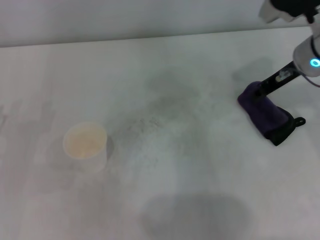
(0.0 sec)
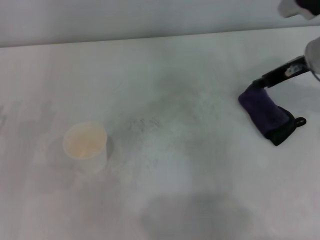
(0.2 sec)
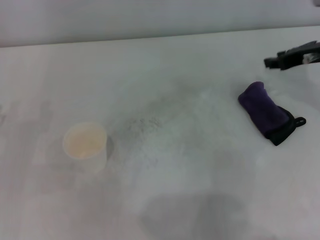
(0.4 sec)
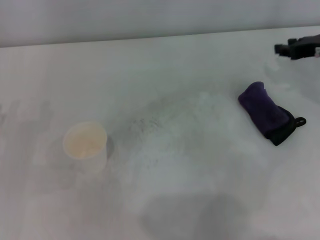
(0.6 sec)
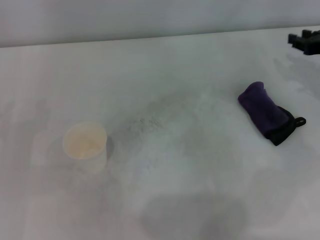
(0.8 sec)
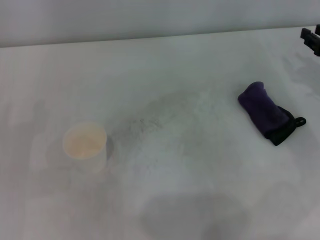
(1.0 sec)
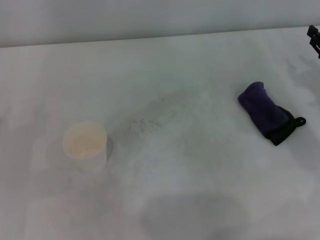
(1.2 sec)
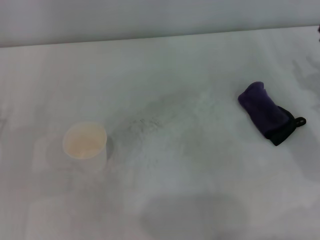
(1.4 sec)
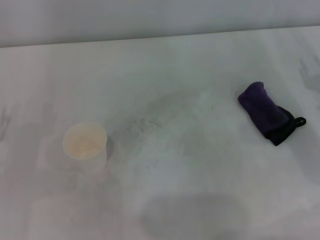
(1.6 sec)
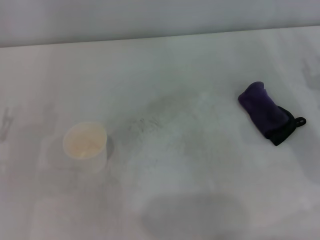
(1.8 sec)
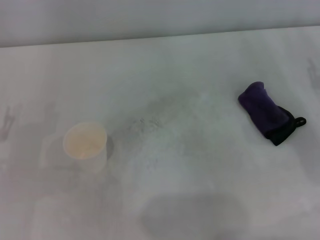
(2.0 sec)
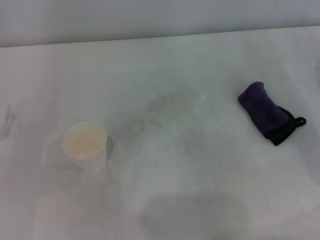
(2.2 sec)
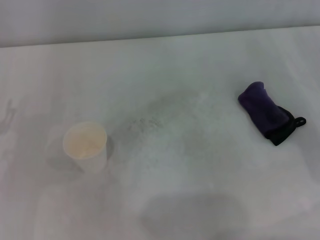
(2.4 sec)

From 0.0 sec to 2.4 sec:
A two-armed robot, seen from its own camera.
From 0.0 sec to 1.2 sec: The right gripper is displaced to the right, downward and backward by about 15 cm.

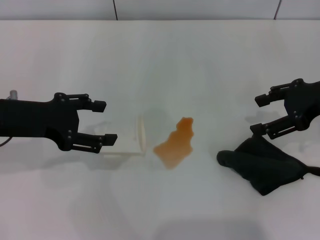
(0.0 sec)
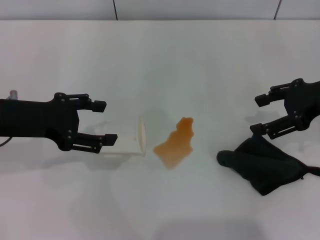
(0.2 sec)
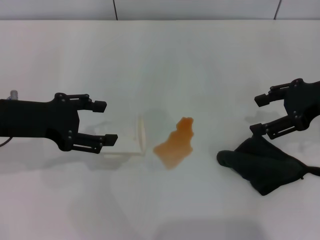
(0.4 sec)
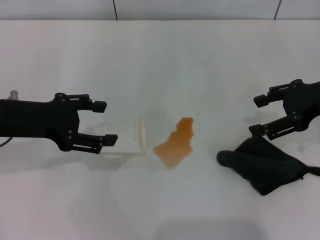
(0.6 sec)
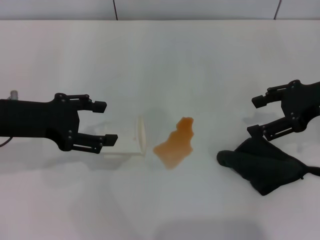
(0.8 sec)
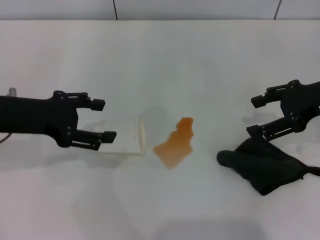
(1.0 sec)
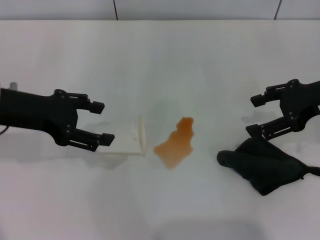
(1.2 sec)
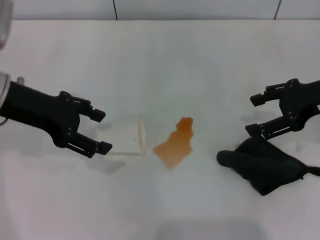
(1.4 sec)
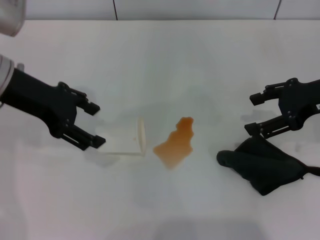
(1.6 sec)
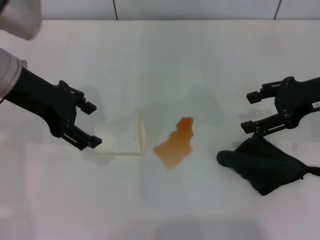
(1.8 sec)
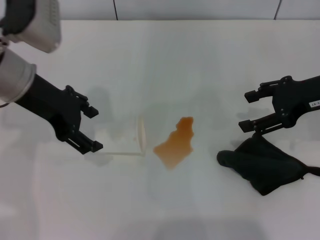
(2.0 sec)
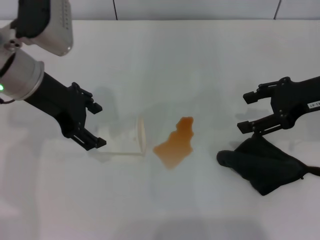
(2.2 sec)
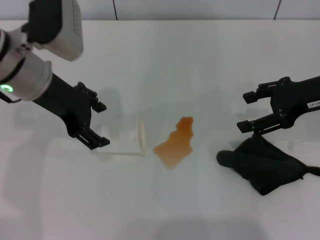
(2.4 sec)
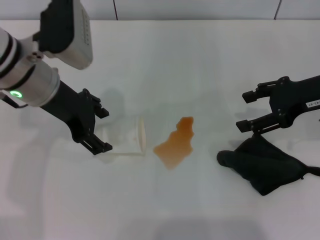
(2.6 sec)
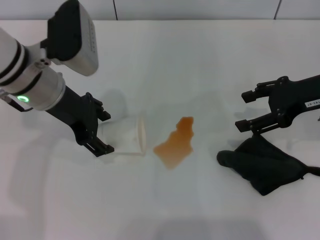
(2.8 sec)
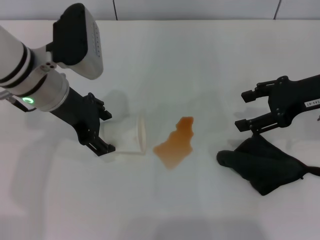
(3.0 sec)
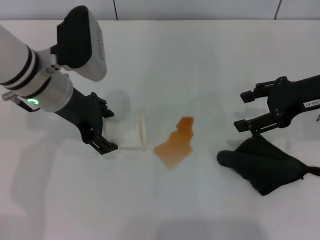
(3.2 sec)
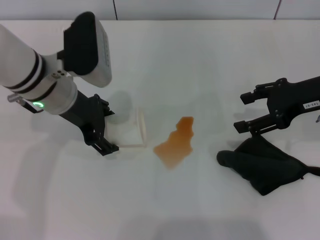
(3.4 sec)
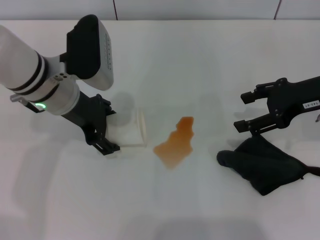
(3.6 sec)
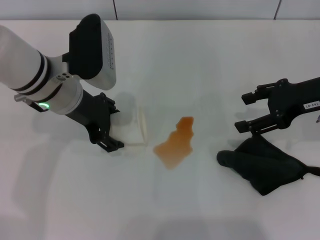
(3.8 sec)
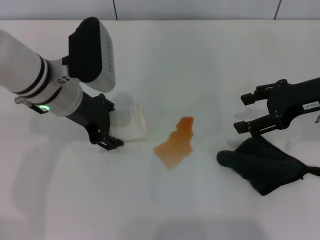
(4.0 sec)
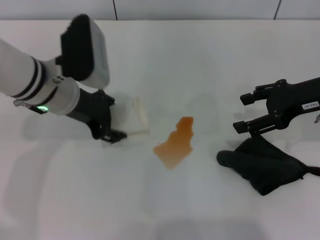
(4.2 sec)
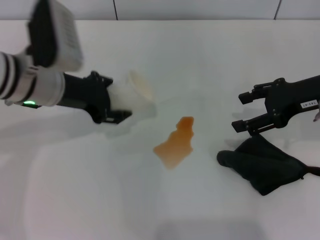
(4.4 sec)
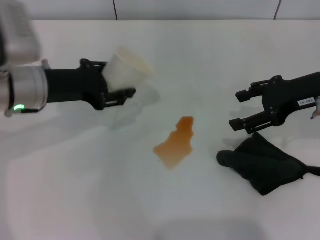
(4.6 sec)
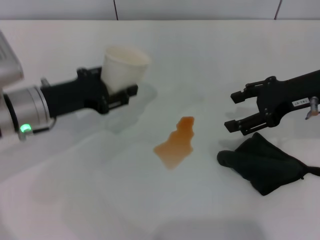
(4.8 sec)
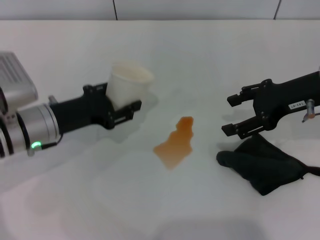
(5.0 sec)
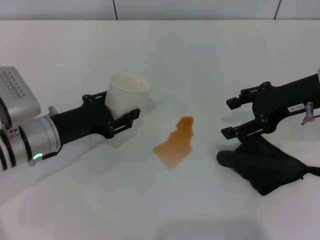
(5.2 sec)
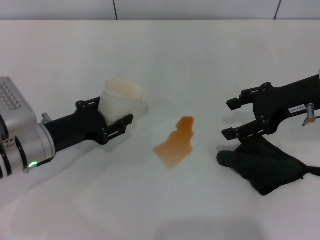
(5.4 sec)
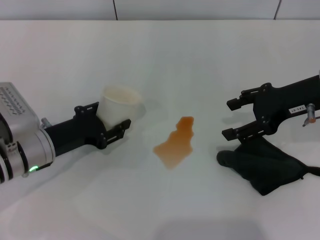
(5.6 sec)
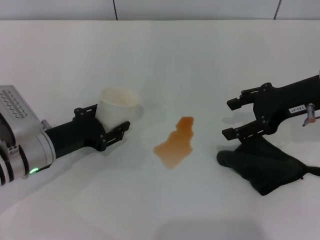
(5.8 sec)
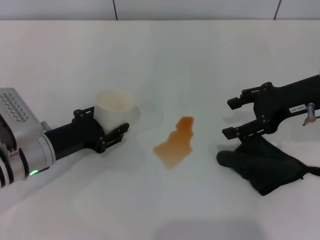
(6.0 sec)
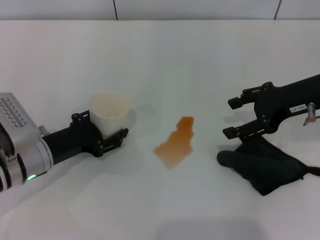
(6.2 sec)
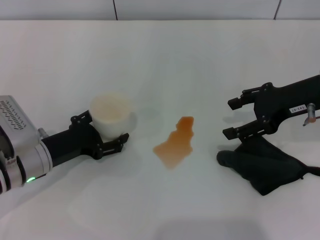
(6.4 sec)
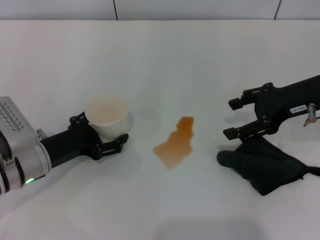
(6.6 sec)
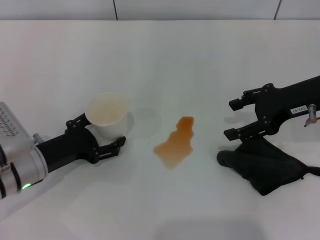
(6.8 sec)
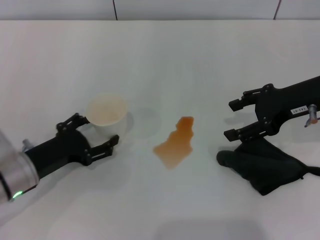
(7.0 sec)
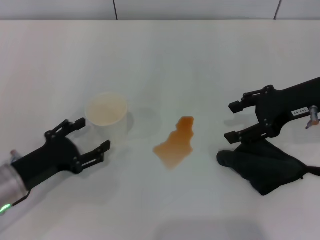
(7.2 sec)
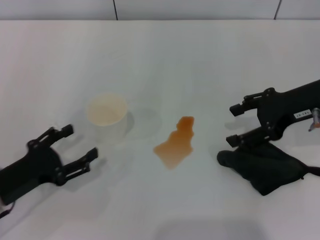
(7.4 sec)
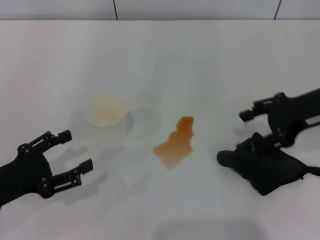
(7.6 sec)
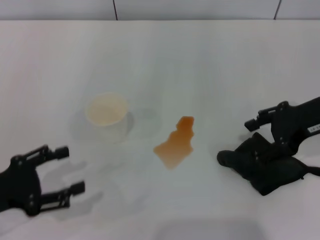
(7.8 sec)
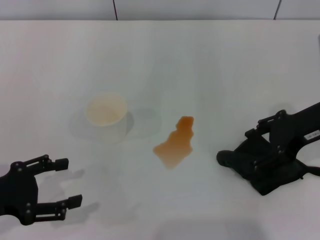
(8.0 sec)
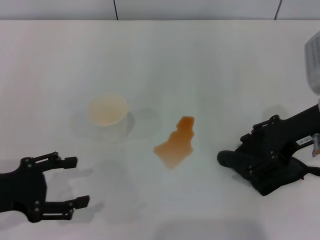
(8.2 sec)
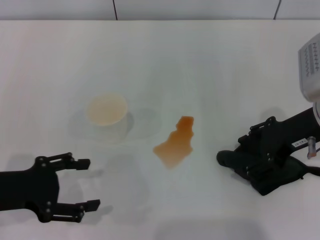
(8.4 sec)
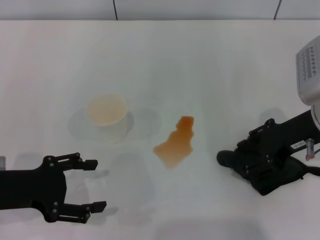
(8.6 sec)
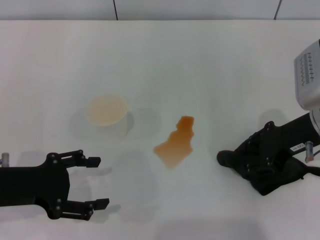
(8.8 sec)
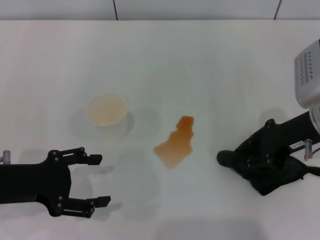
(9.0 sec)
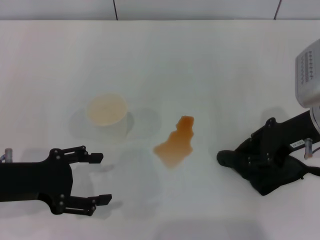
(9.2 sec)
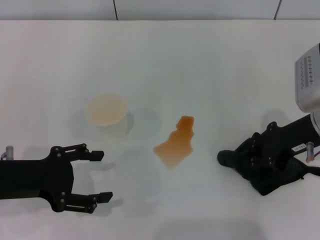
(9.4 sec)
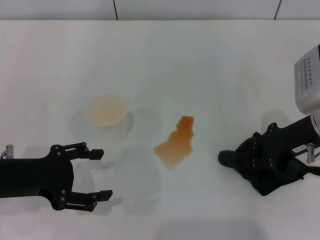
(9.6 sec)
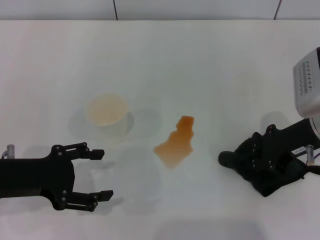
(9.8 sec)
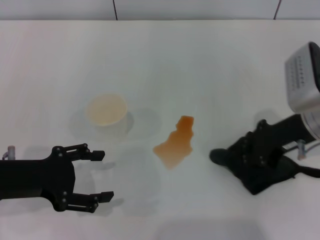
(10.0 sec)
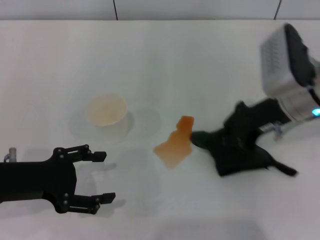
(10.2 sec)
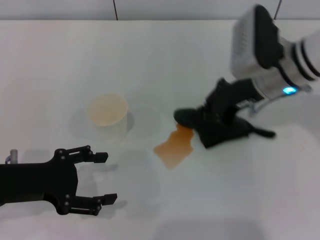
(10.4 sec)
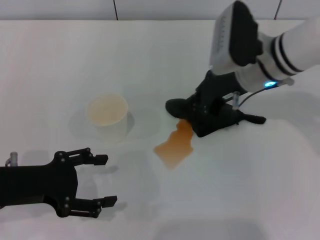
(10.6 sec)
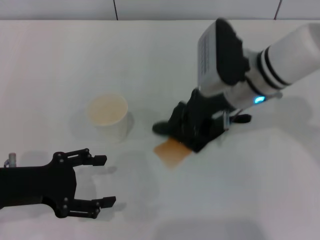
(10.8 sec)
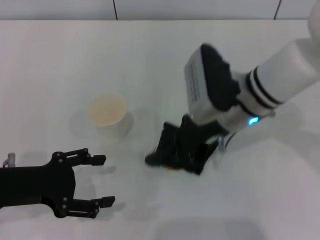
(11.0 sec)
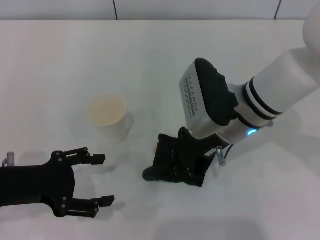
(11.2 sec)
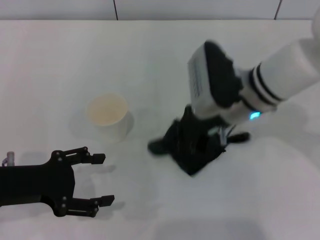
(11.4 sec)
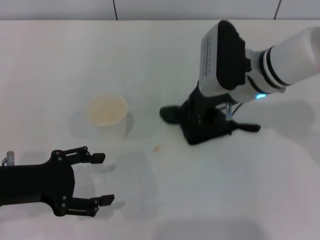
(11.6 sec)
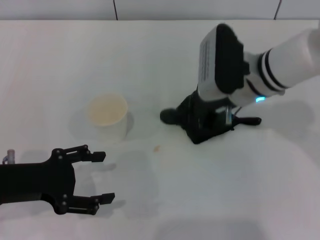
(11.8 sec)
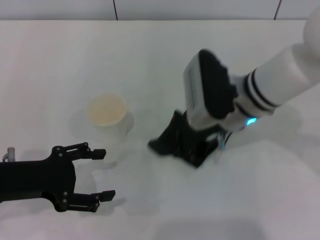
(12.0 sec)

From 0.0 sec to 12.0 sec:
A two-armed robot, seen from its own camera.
Step, from 0.0 sec to 3.6 sec: Grasp the paper cup with the left gripper.
Step, from 4.0 sec to 7.0 sec: Stand the paper cup upright with the left gripper.
Step, from 7.2 sec to 9.6 sec: Grasp the rag with the right gripper.
From 0.0 sec to 1.6 sec: The left gripper moves upward, about 5 cm.
From 1.6 sec to 3.0 sec: The left gripper travels to the right and downward by roughly 10 cm.
From 3.0 sec to 4.4 sec: The left gripper closes up.
From 4.4 sec to 6.0 sec: The left gripper heads downward and backward, covering about 15 cm.
From 6.0 sec to 7.6 sec: The left gripper is displaced backward and to the left by roughly 10 cm, and opens.
From 7.6 sec to 9.0 sec: The right gripper closes. Meanwhile the left gripper changes place by roughly 5 cm.
From 9.0 sec to 10.4 sec: The right gripper is displaced to the left and forward by about 10 cm, and closes up.
From 10.4 sec to 12.0 sec: The right gripper shifts roughly 5 cm to the left.

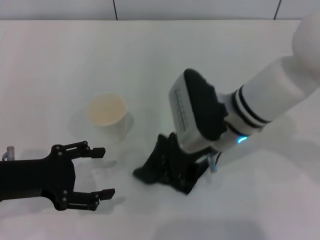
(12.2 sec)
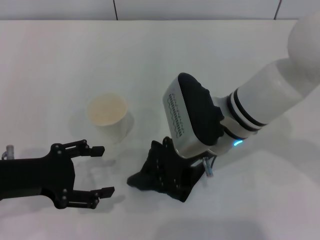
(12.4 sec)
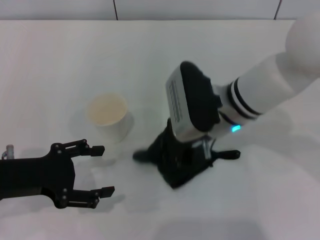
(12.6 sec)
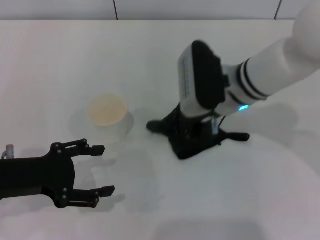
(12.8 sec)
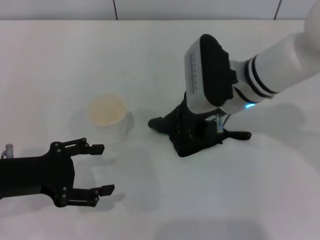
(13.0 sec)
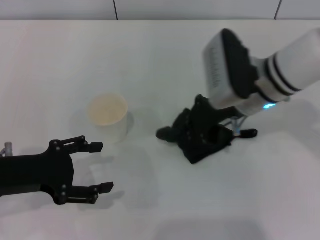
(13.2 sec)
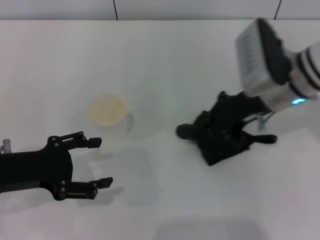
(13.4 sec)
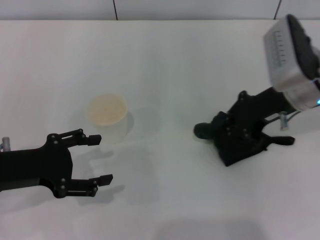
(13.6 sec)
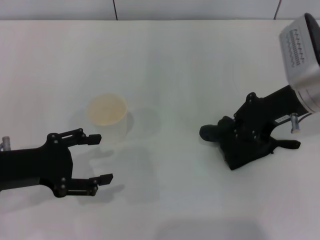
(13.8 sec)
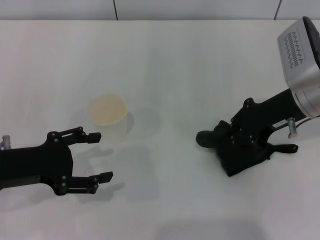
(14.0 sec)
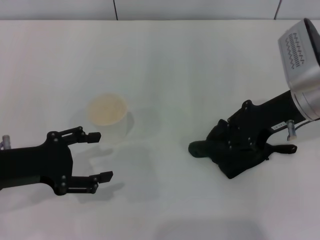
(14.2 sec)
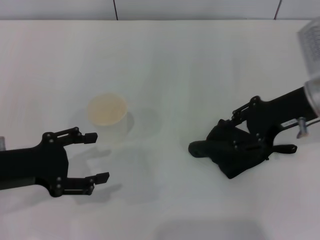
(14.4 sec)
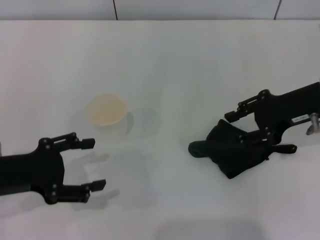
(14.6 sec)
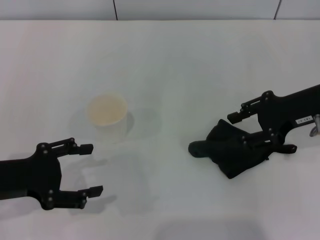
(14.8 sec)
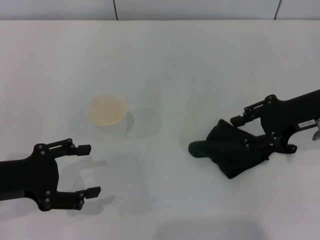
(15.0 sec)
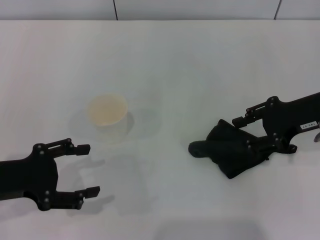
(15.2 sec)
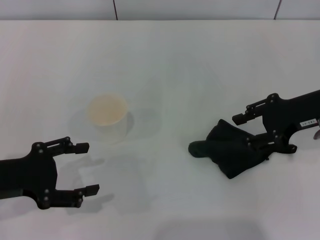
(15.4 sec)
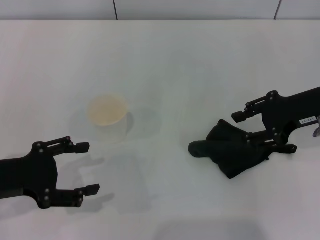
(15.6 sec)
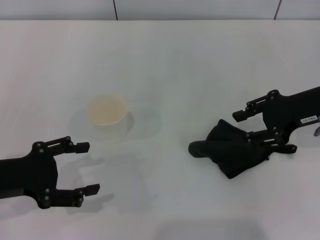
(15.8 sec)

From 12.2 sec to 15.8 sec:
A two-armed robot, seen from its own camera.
Step, from 14.0 sec to 14.6 sec: Place the rag on the table with the right gripper.
From 12.2 sec to 14.0 sec: The right gripper goes roughly 15 cm to the right.
From 14.0 sec to 15.8 sec: The right gripper travels to the right by about 5 cm, and opens up.
